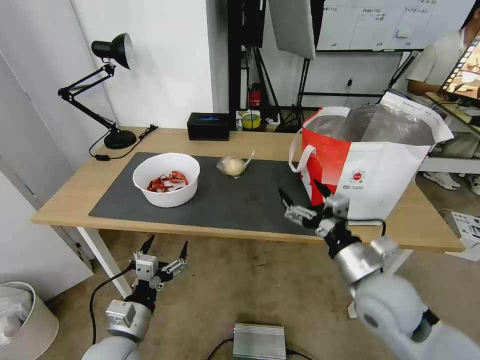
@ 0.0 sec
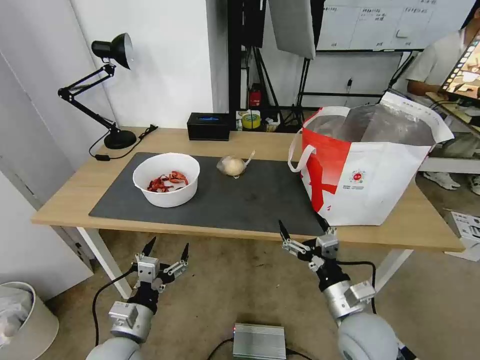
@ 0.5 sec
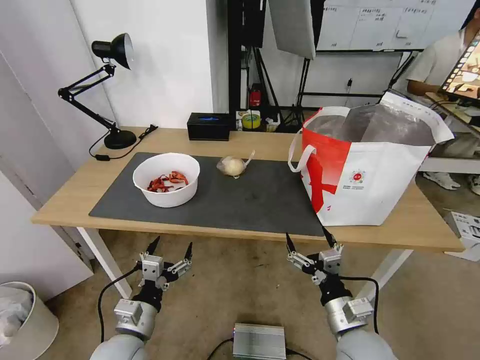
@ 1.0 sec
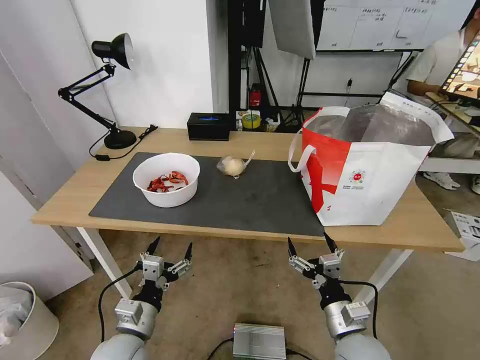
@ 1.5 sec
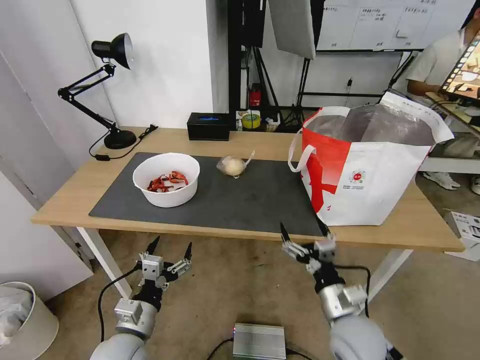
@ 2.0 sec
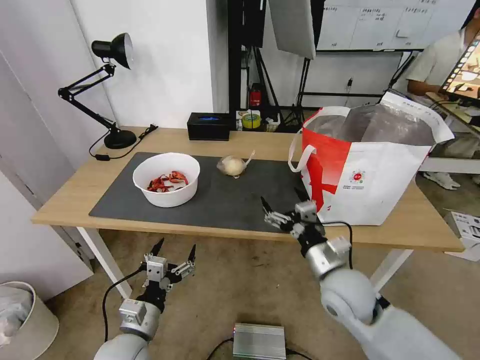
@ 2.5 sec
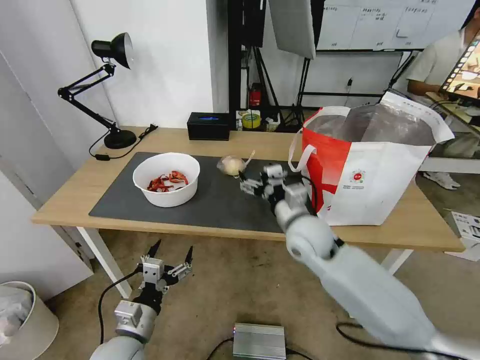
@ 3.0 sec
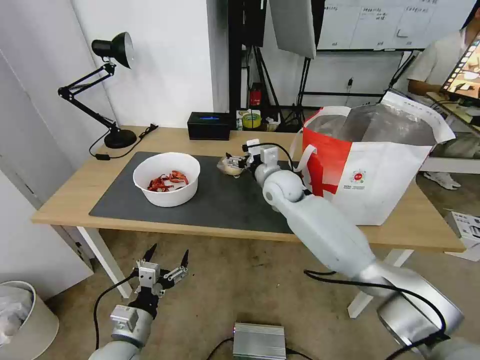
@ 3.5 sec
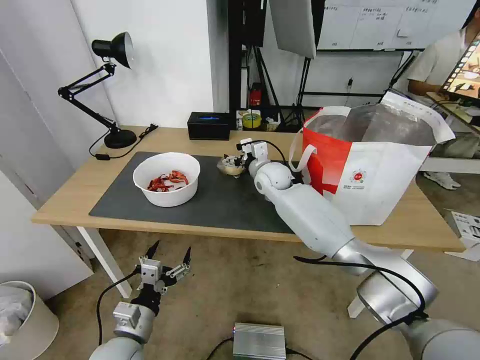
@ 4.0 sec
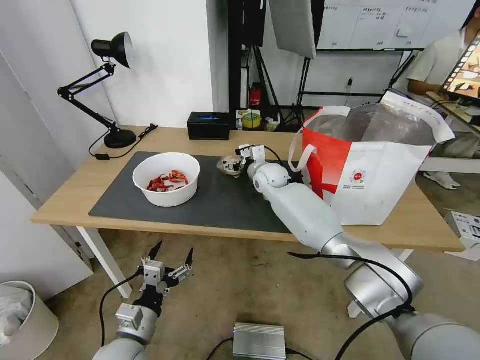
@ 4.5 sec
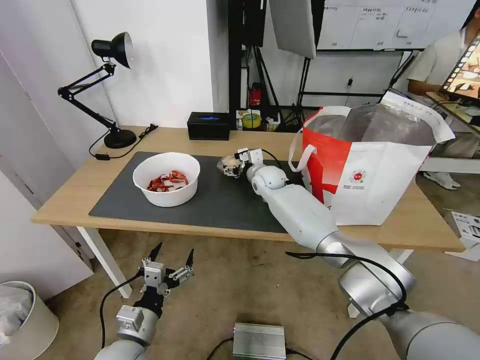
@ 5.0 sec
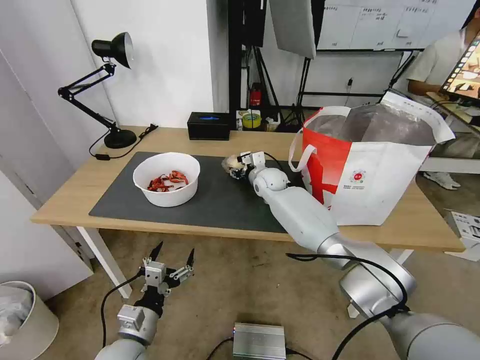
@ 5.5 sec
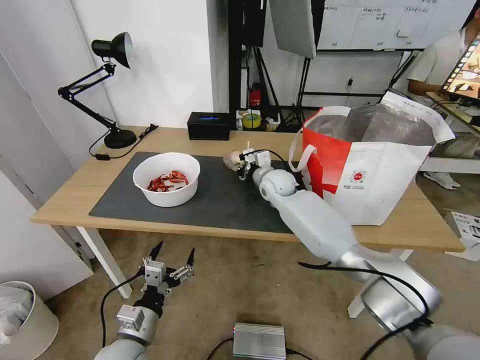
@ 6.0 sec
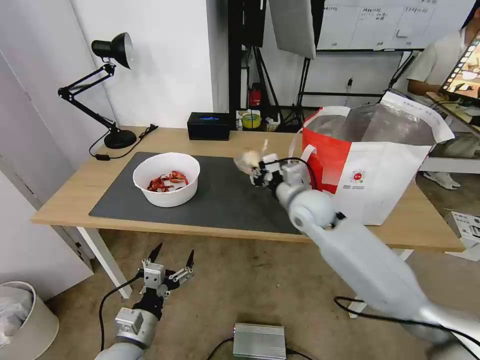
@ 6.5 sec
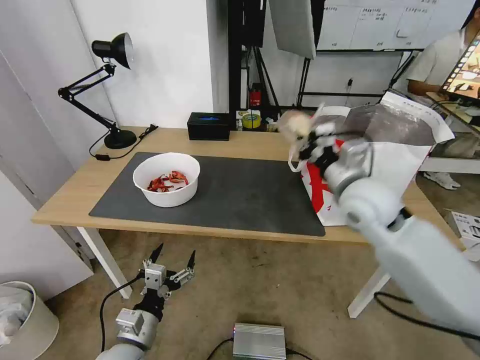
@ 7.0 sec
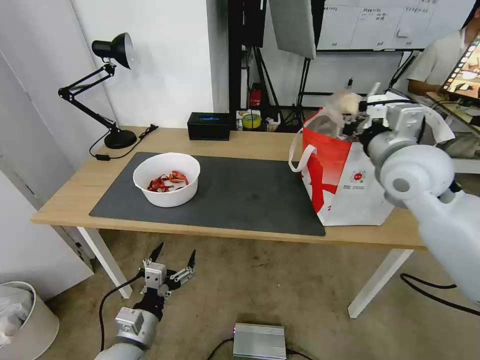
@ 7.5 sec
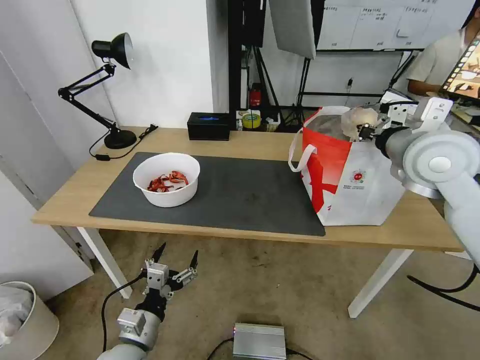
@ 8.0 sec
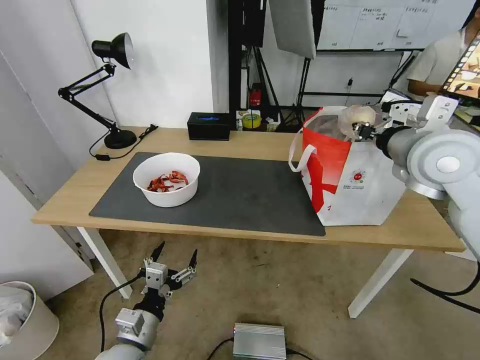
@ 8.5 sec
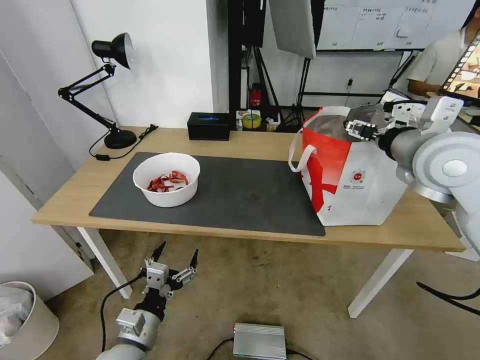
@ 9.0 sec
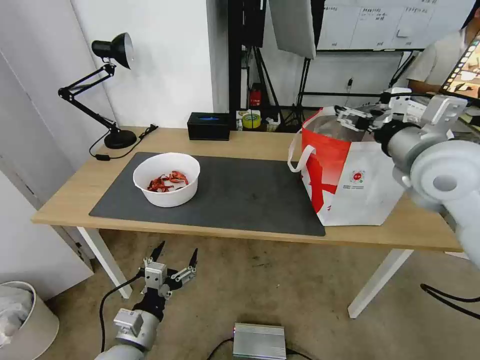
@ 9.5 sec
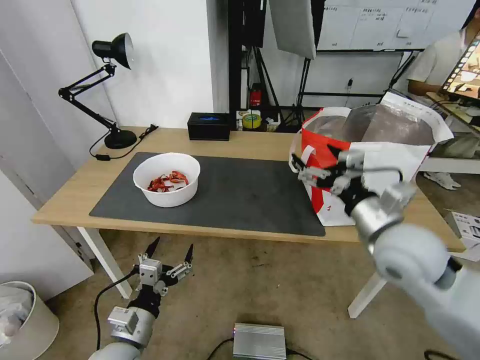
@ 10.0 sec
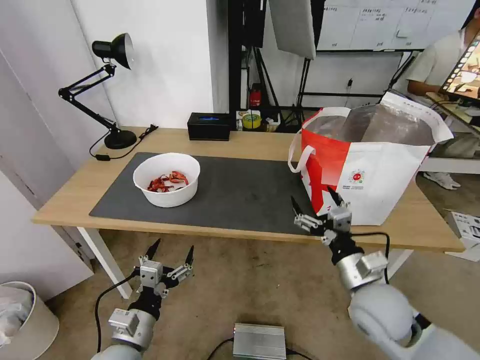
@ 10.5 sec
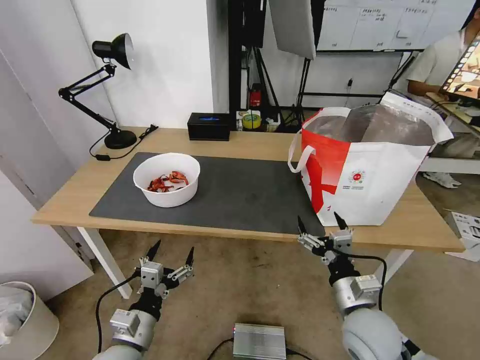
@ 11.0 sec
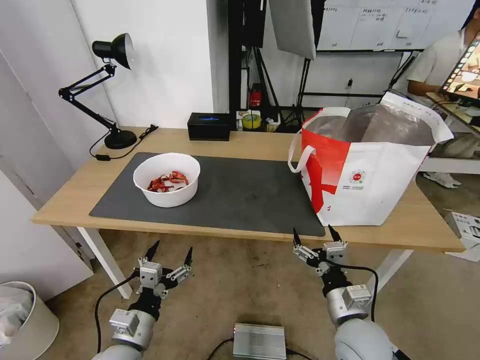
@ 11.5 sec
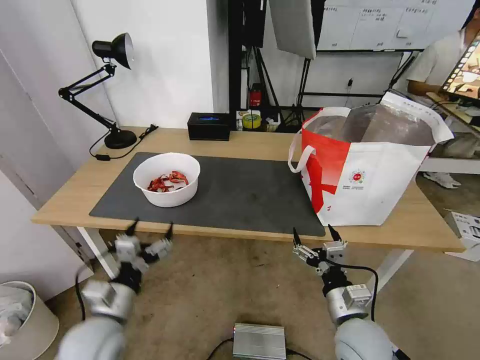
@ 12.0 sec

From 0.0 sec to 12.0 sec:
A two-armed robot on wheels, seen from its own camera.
Task of the whole recording: Pick up the trash from the table and place it into the takeout bag.
From 0.0 sec to 2.0 sec: The right gripper heads downward, covering about 15 cm.
From 2.0 sec to 4.0 sec: The right gripper is displaced forward by some 35 cm.
From 4.0 sec to 6.0 sec: The right gripper closes up.
From 6.0 sec to 8.0 sec: The right gripper travels upward, to the right and backward by roughly 35 cm.
From 8.0 sec to 10.0 sec: The right gripper goes roughly 15 cm downward and backward, and opens.
From 10.0 sec to 12.0 sec: The right gripper travels downward and backward by roughly 20 cm.

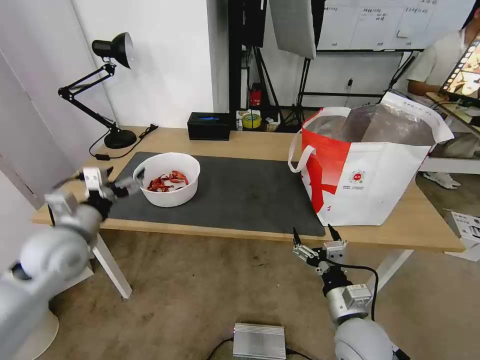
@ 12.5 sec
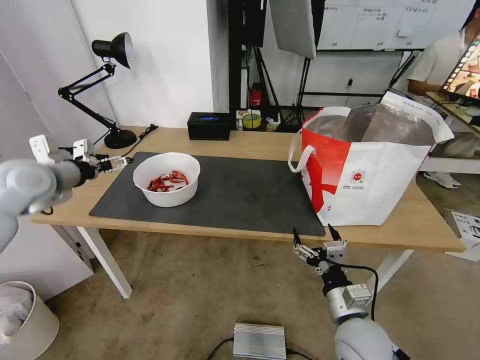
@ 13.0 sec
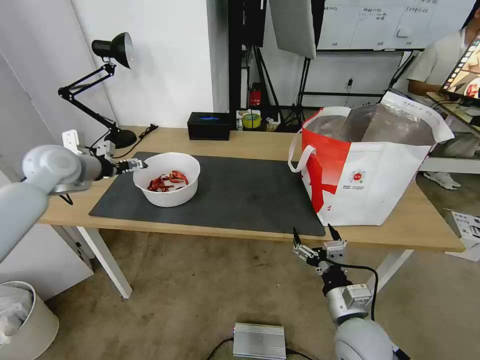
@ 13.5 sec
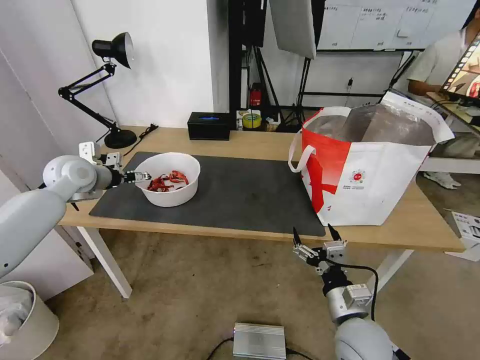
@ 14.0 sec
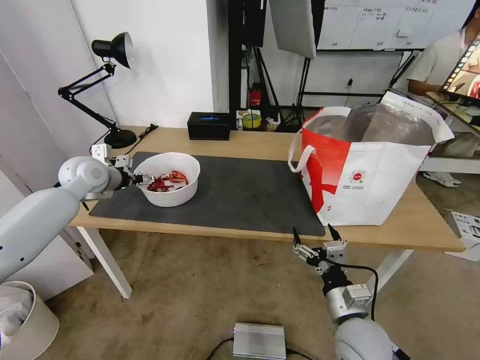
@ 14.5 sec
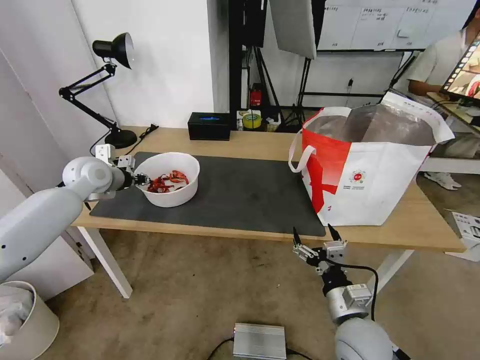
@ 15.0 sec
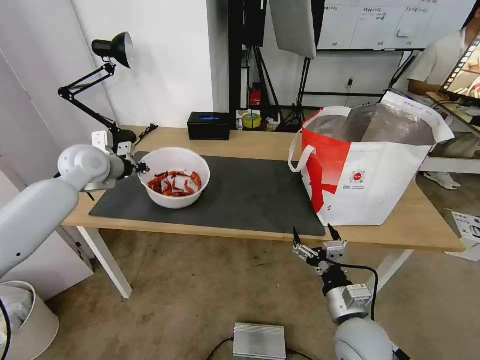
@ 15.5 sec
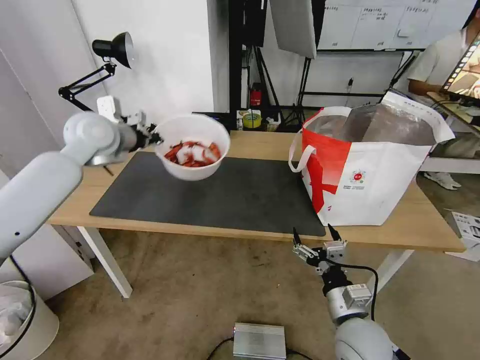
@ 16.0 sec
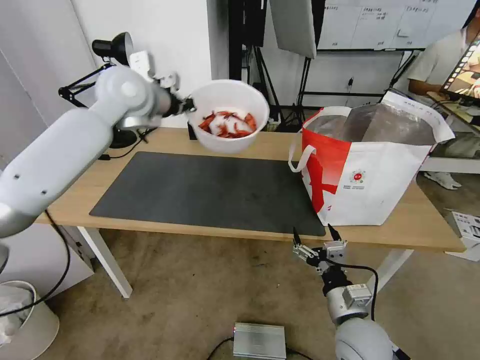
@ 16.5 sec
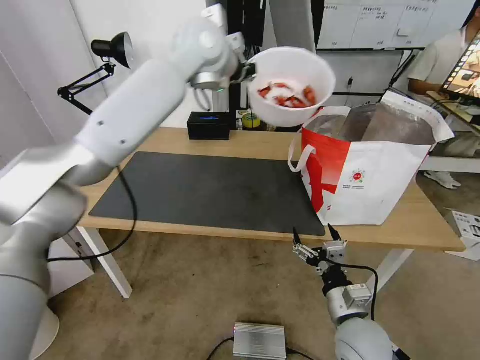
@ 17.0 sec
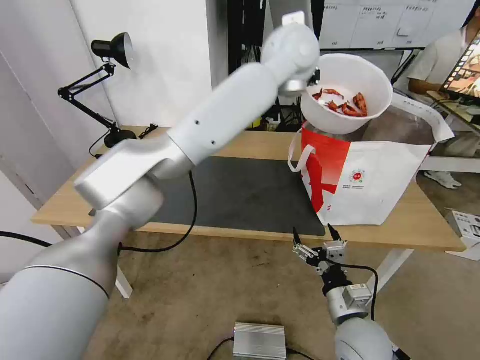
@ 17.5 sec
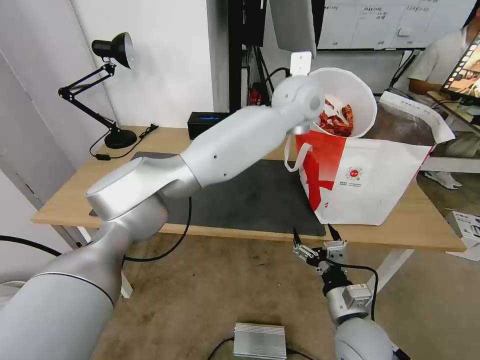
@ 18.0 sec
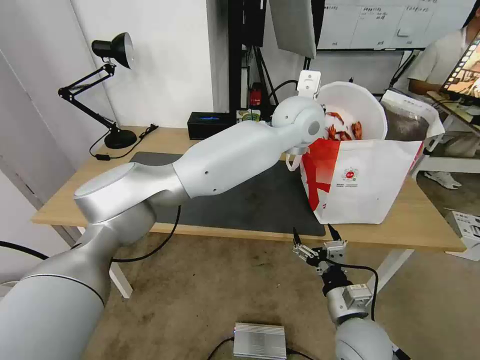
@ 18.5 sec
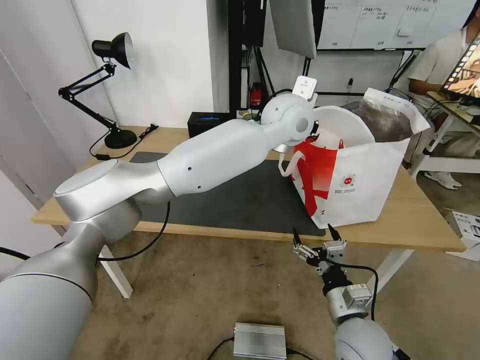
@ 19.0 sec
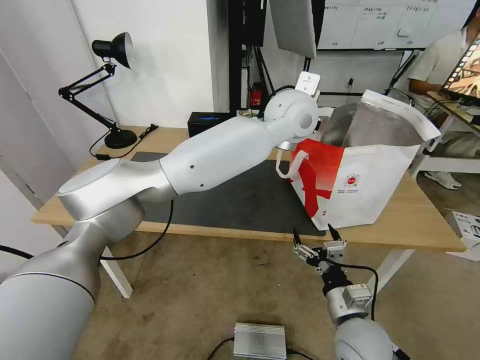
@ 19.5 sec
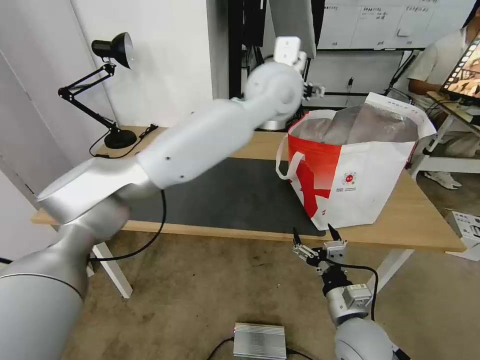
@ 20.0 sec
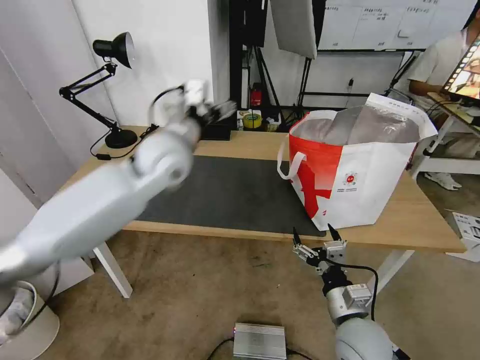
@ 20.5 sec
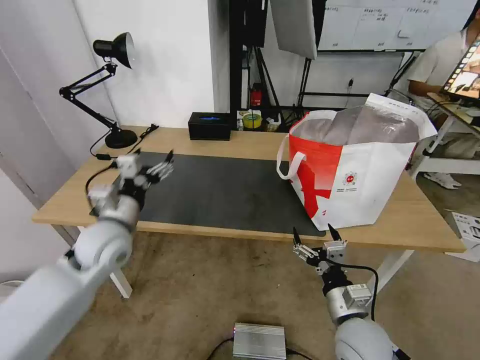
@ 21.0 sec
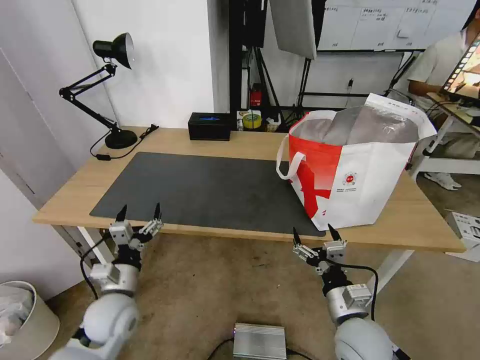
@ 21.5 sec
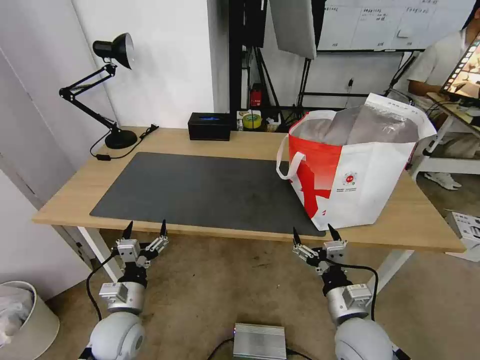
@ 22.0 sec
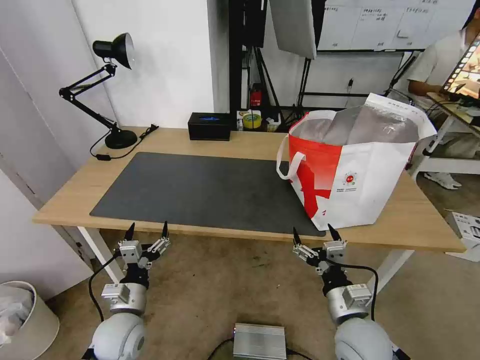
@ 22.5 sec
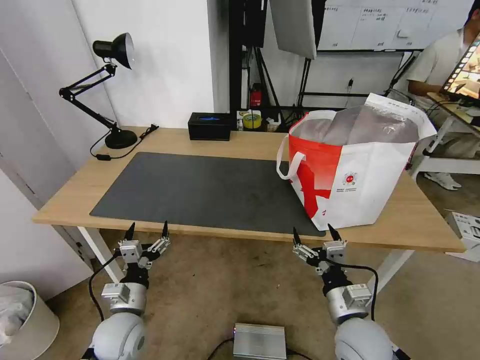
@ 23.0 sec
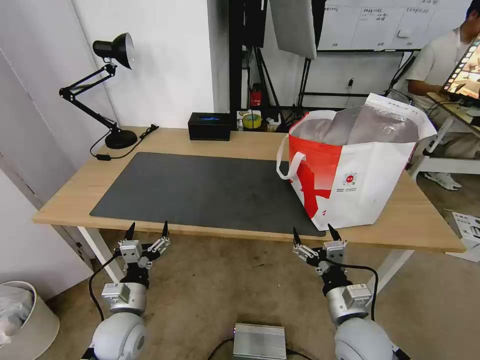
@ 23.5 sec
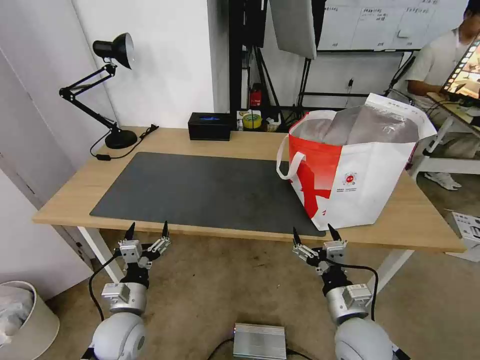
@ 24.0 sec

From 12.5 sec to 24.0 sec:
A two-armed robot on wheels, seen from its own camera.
Task of the whole recording: Pick up the trash from the table and place it into the takeout bag.
From 12.5 sec to 14.5 sec: The left gripper moves forward, about 20 cm.
From 14.5 sec to 16.5 sec: The left gripper moves upward and to the right, about 25 cm, and closes its fingers.
From 16.5 sec to 18.5 sec: The left gripper goes about 30 cm to the right.
From 18.5 sec to 20.0 sec: The left gripper moves upward and to the left, roughly 10 cm, and opens its fingers.
From 20.0 sec to 22.0 sec: The left gripper shifts about 60 cm downward, to the left and backward.
From 22.0 sec to 24.0 sec: Neither gripper changes place.
